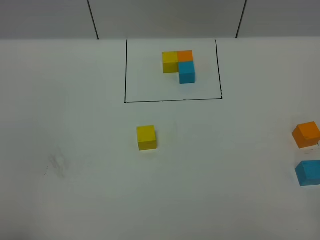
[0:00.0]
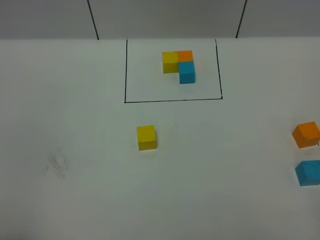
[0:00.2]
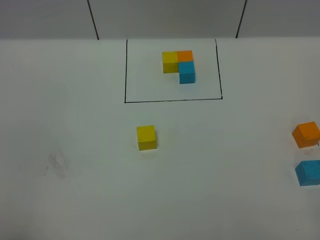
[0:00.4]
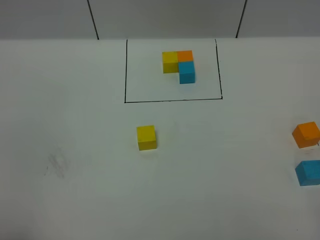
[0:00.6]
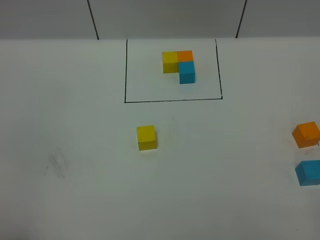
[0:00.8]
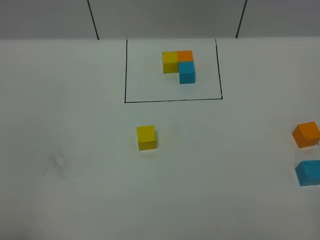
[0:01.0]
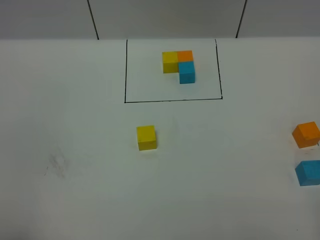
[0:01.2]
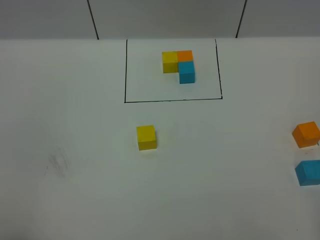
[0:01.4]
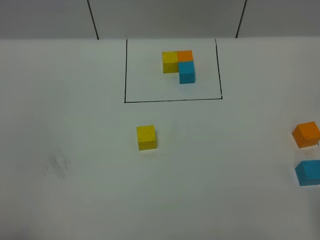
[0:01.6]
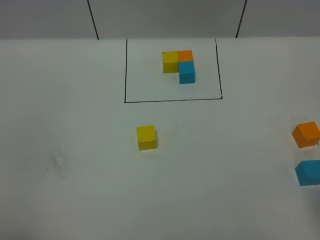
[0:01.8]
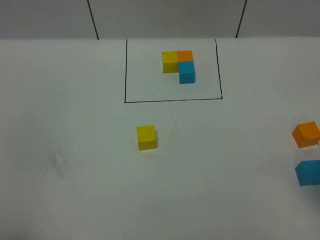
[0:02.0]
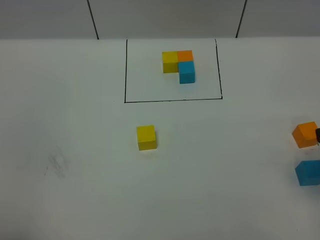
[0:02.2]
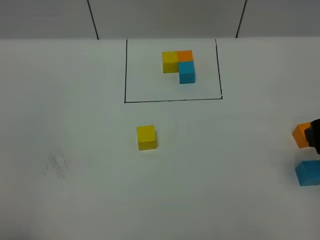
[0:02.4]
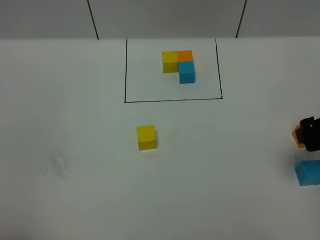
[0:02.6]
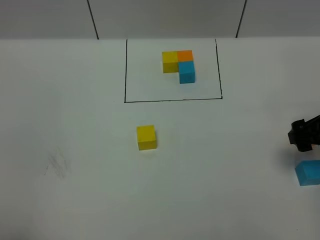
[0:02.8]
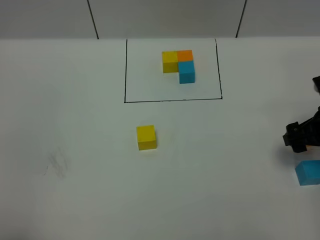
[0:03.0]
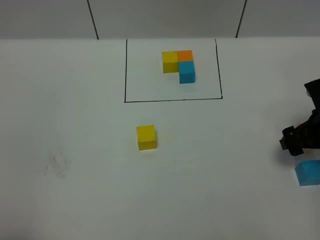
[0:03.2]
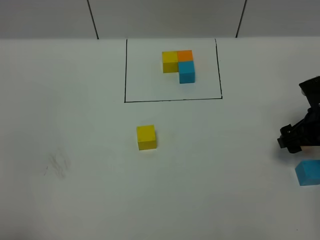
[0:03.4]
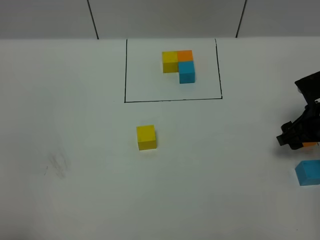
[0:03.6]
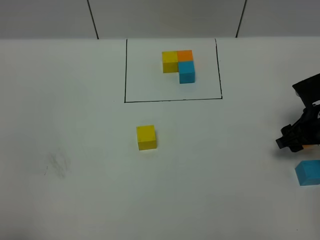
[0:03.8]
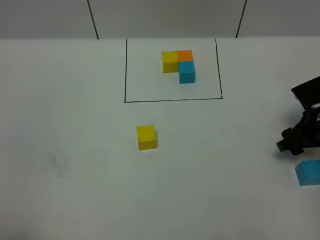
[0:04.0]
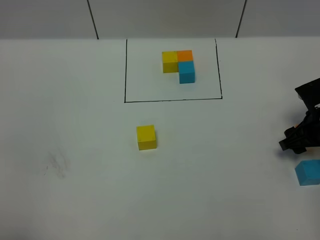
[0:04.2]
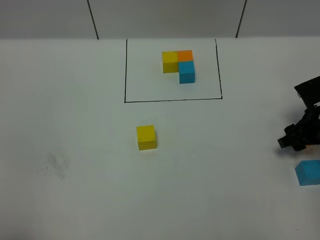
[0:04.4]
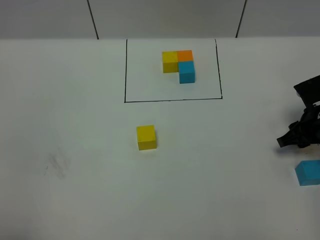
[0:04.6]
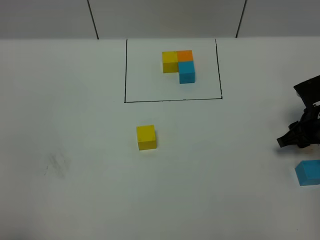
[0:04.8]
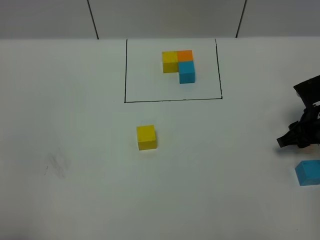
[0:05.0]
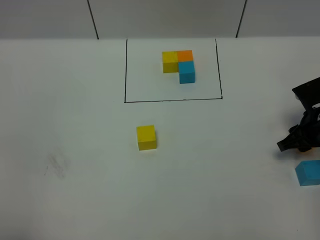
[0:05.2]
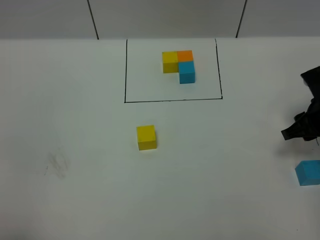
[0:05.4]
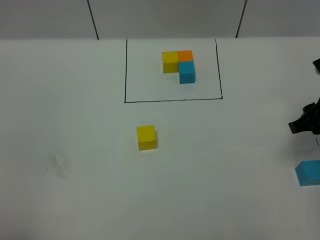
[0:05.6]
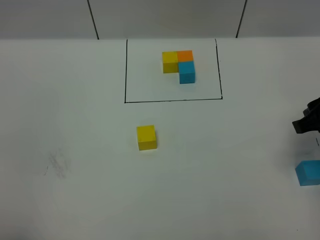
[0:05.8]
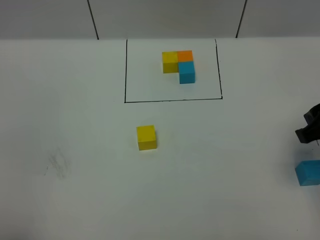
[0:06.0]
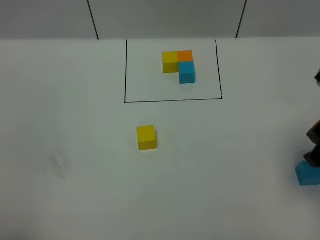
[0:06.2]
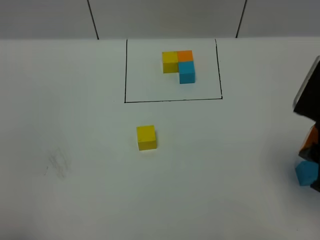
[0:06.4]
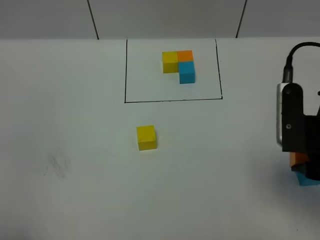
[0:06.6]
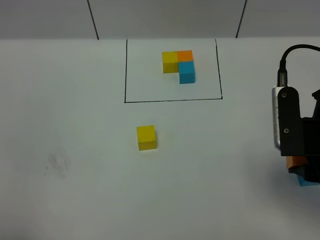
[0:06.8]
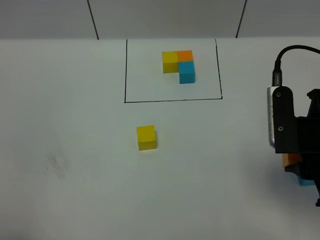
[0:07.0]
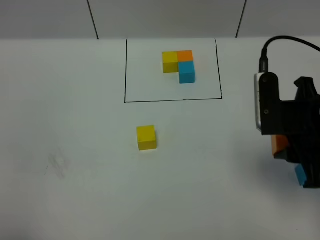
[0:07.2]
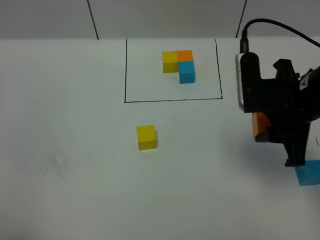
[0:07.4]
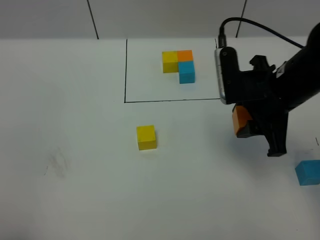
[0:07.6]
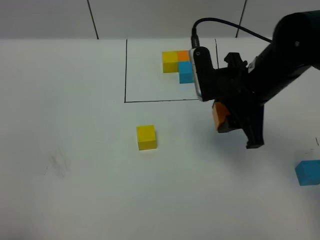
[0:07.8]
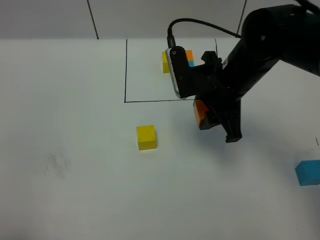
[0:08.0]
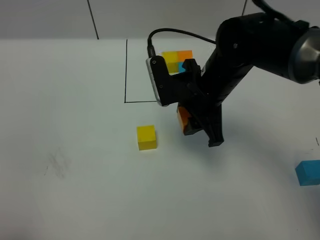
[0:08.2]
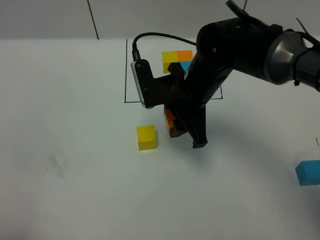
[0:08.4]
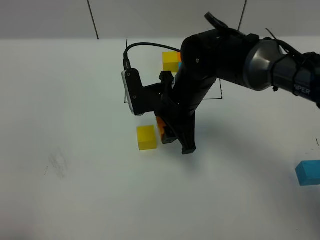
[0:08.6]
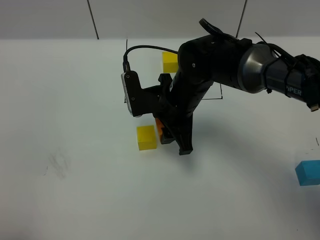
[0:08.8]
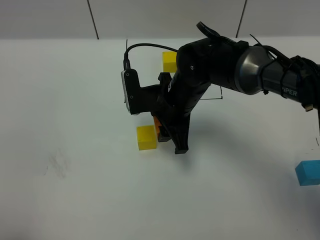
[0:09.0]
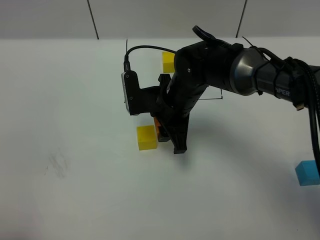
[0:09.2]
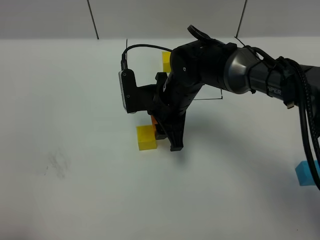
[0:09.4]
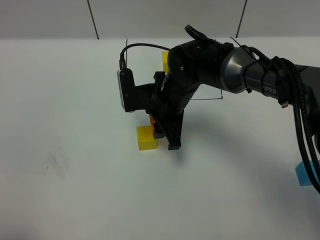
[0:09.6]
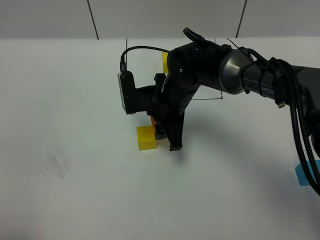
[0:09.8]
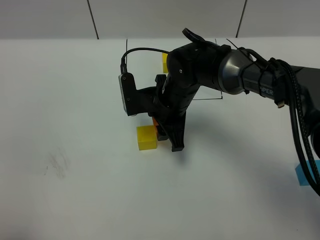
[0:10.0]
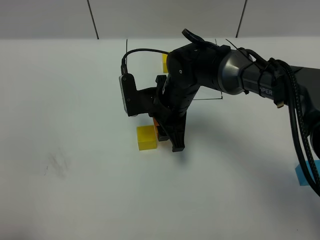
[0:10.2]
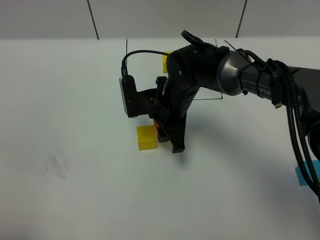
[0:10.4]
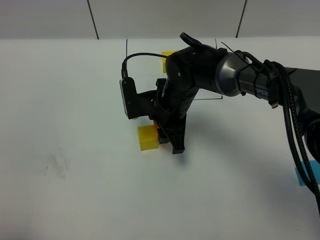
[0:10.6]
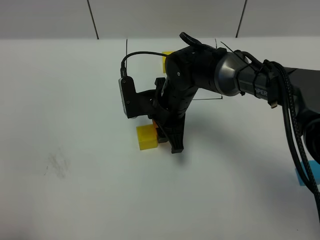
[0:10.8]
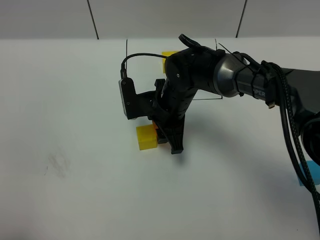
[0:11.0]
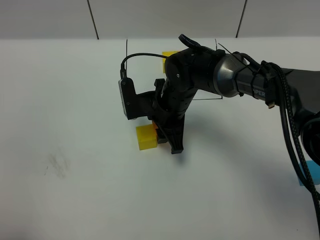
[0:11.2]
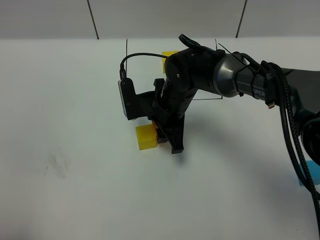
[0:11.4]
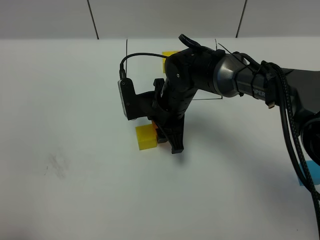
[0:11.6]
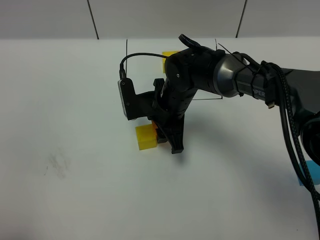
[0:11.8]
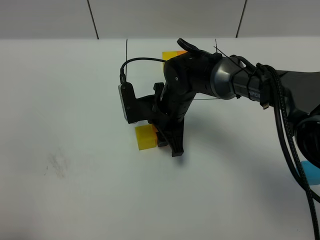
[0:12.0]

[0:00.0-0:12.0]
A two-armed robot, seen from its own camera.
Task of the whole recording: According to the building block template in front, assemble the scattered blocks together.
0:01.6 to 0:03.0: The right gripper is displaced forward and downward by approximately 25 cm.
0:03.0 to 0:04.4: The right gripper travels downward by approximately 5 cm.
0:04.4 to 0:06.0: The right gripper goes roughly 20 cm upward and backward.
0:06.0 to 0:07.6: The right gripper moves to the left and forward, roughly 10 cm.
0:07.6 to 0:09.0: The right gripper shifts some 15 cm to the left, downward and forward.
0:09.0 to 0:12.0: The grippers stay close to where they were, moving slightly.

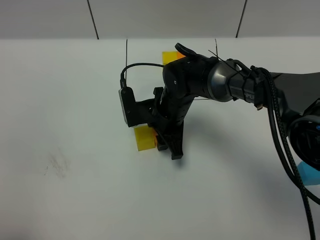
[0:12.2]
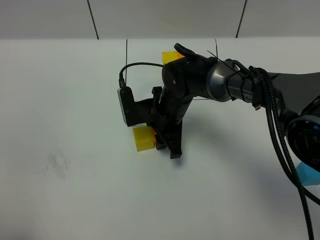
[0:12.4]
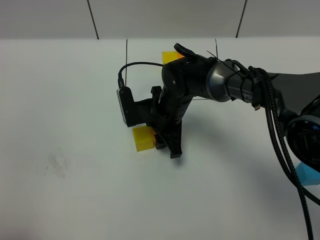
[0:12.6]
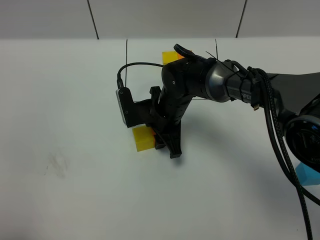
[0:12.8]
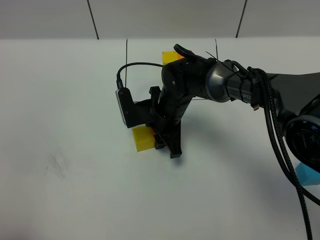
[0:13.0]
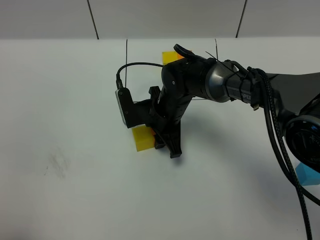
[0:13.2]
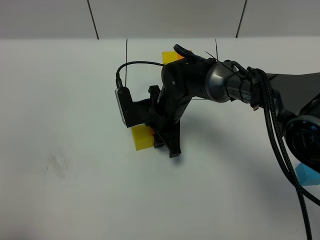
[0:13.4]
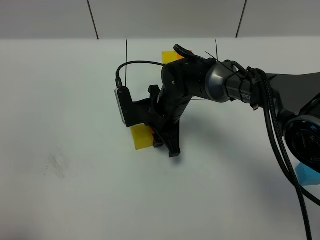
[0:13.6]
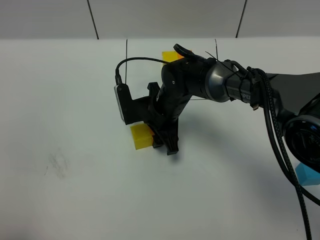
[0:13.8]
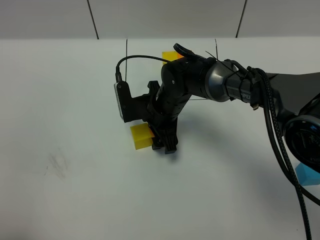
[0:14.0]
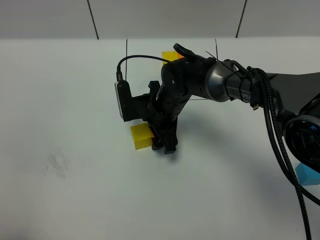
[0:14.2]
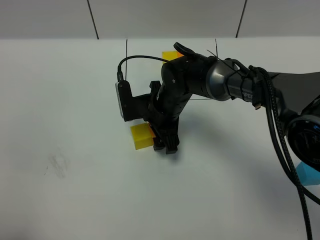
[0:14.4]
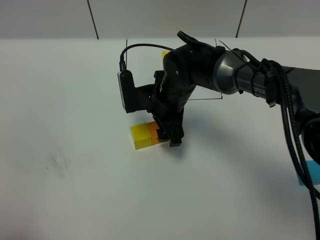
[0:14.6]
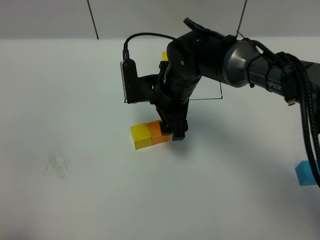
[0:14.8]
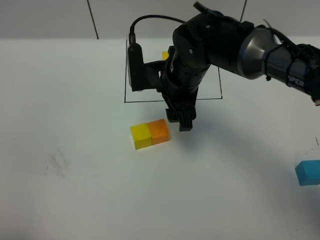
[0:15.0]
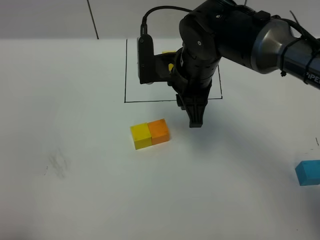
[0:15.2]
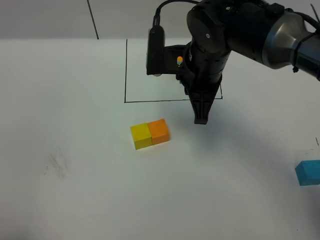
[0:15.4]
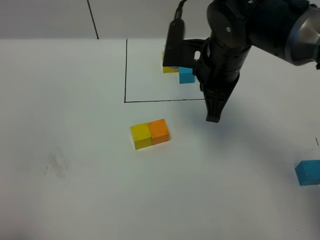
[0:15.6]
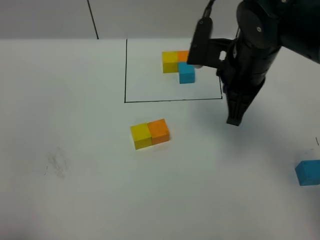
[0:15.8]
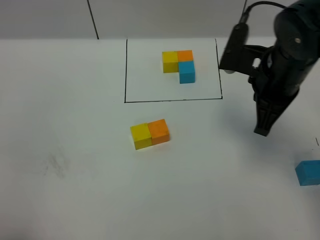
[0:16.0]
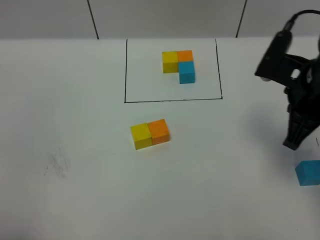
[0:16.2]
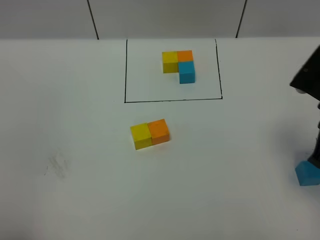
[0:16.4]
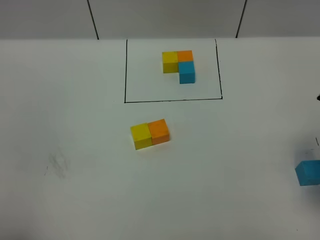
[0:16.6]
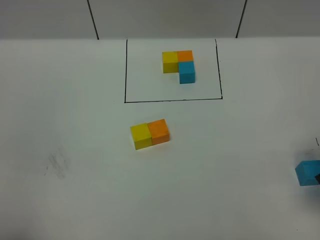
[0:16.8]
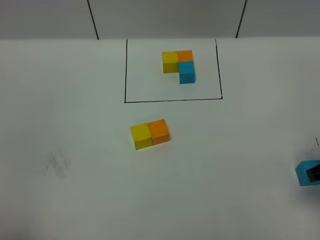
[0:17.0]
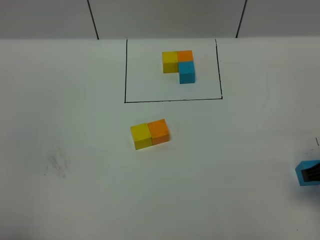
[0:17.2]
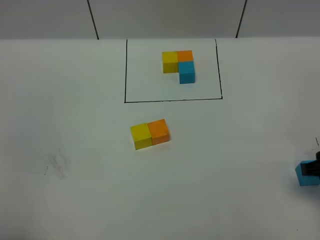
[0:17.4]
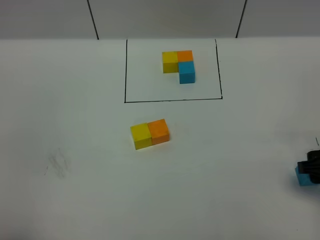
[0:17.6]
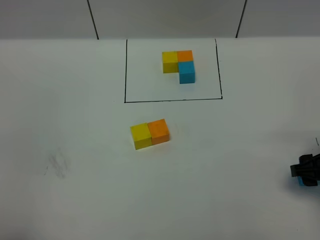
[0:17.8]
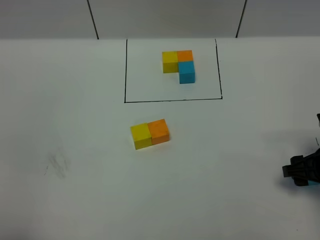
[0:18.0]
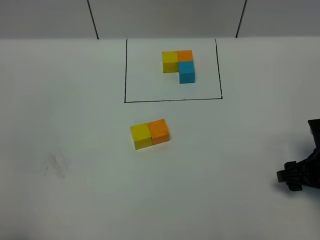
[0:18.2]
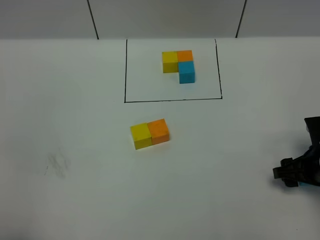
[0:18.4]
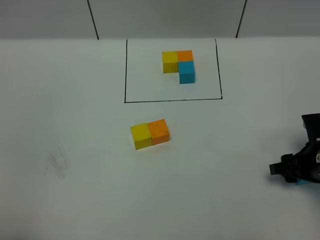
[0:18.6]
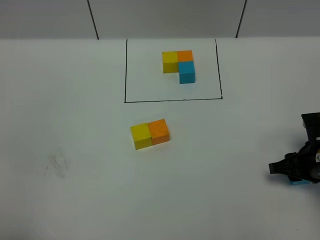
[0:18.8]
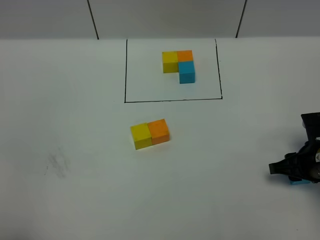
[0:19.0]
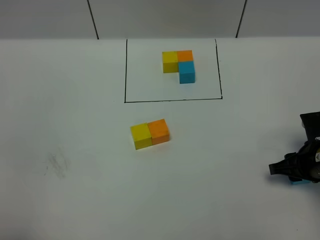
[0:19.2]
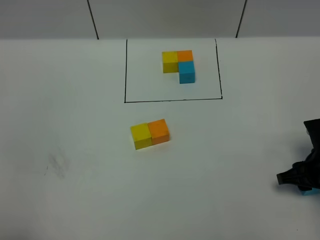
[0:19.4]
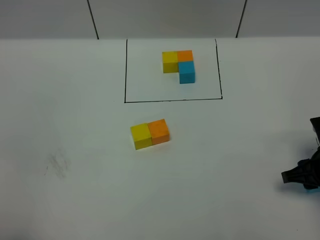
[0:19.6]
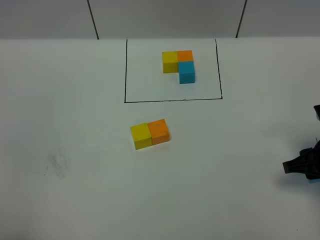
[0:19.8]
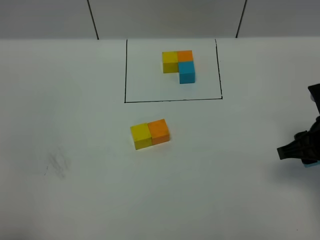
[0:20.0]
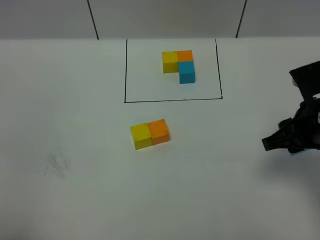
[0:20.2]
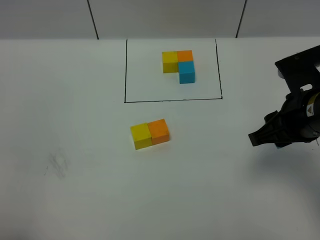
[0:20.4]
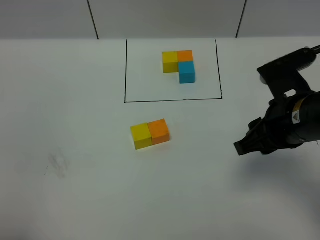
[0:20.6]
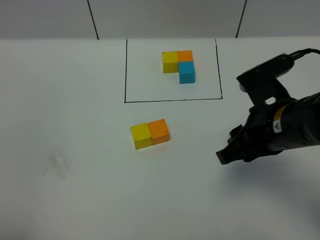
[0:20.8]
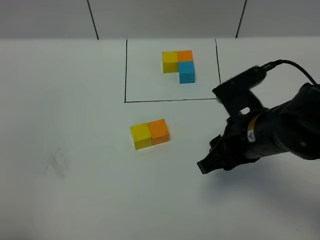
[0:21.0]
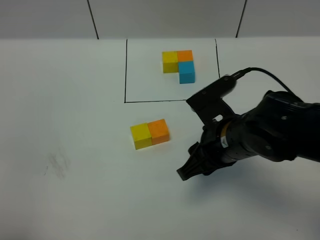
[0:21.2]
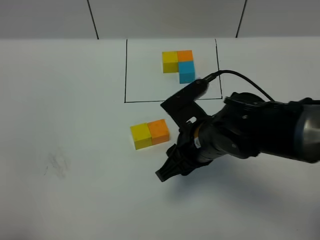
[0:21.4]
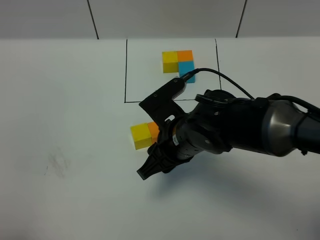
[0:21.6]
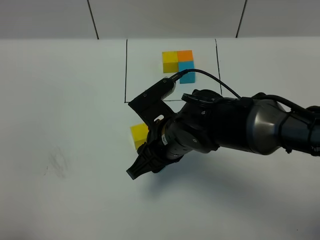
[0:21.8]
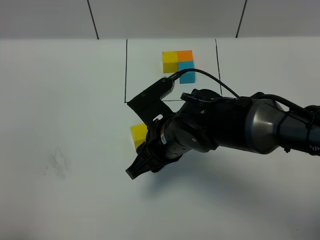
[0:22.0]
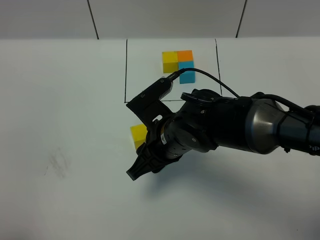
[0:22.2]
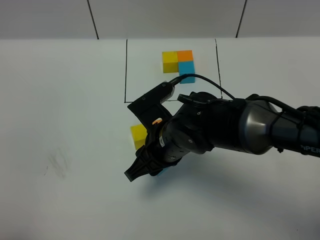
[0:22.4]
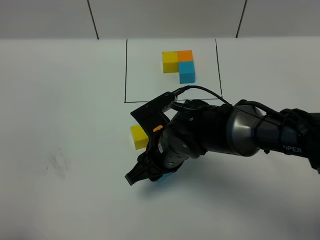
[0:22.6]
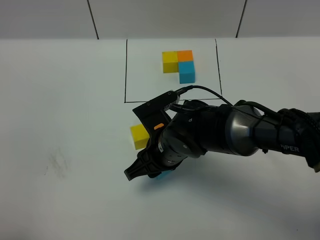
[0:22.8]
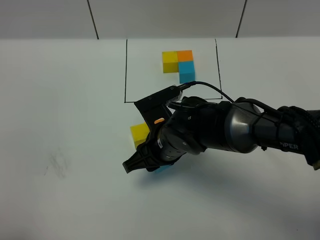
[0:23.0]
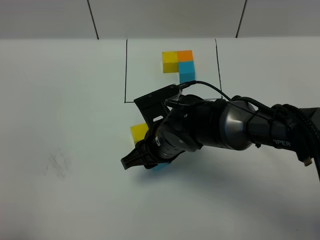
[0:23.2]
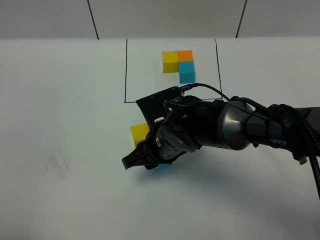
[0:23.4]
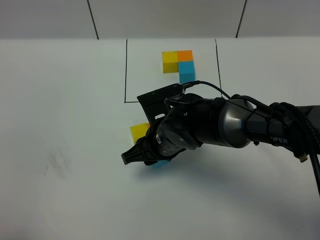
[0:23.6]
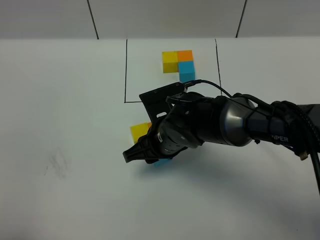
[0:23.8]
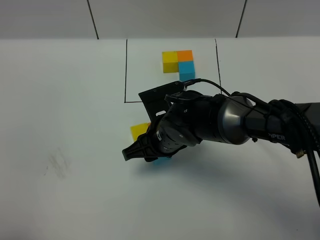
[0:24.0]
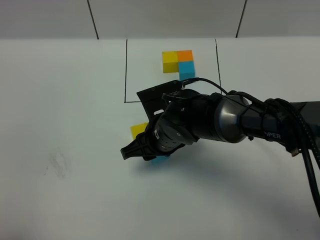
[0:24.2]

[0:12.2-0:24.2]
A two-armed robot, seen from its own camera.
Task of the whole recording: According to the building block template in front, assemble the scattered blocks together.
Step, 0:12.2 to 0:14.2: Put the orange cube on the right of the yellow cube.
0:12.2 to 0:13.8: The grippers stay close to where they were, moving slightly.
0:13.8 to 0:15.2: The right gripper travels upward by about 15 cm, and closes its fingers.
0:15.2 to 0:16.6: The right gripper travels to the right and backward by approximately 25 cm.
0:16.6 to 0:18.2: The right gripper travels downward by approximately 15 cm, and opens up.
0:18.2 to 0:19.8: The right gripper is displaced upward by approximately 5 cm, and closes up.
0:19.8 to 0:21.2: The right gripper shifts approximately 20 cm to the left.
0:21.2 to 0:22.6: The right gripper is displaced to the left and downward by roughly 10 cm.
0:22.6 to 0:24.2: The grippers move only a little.
